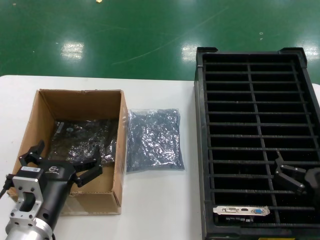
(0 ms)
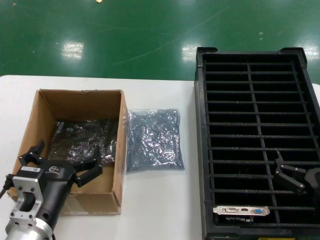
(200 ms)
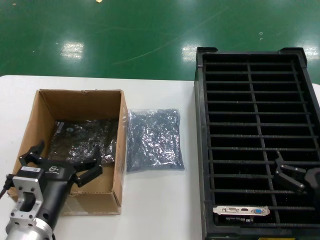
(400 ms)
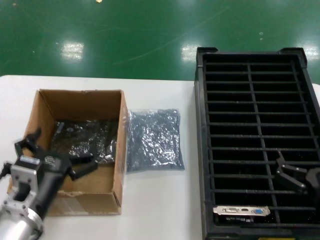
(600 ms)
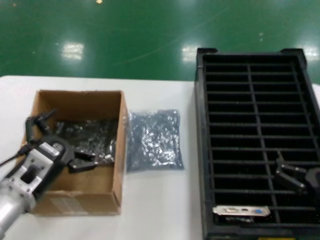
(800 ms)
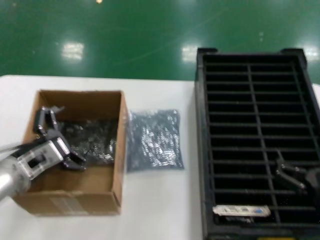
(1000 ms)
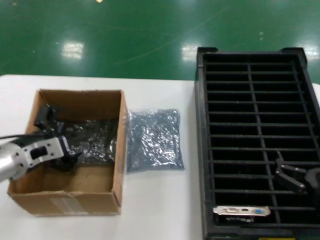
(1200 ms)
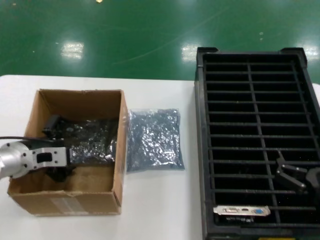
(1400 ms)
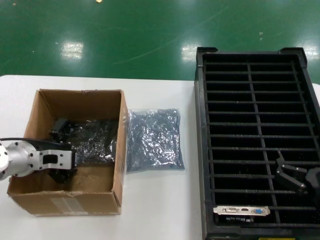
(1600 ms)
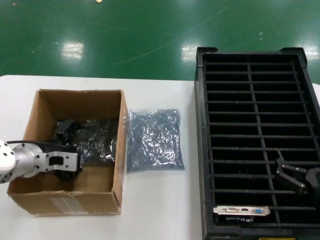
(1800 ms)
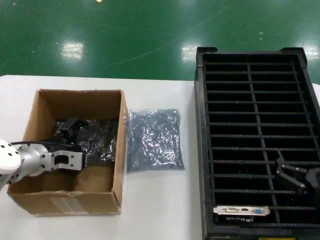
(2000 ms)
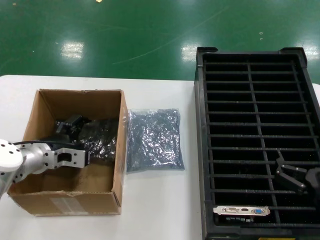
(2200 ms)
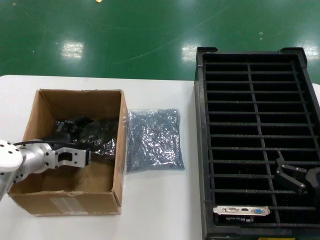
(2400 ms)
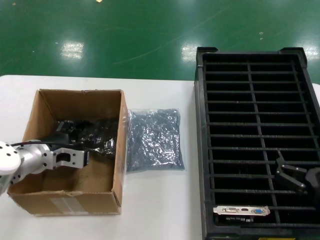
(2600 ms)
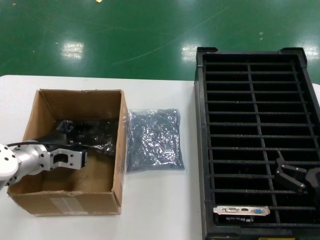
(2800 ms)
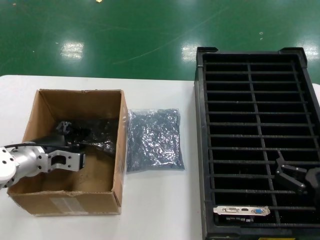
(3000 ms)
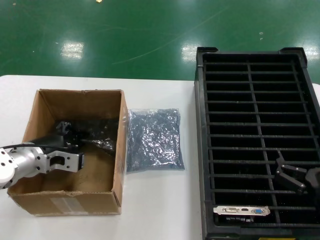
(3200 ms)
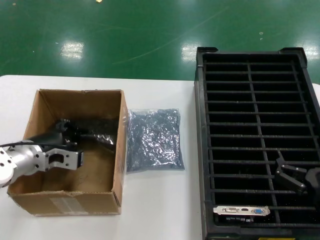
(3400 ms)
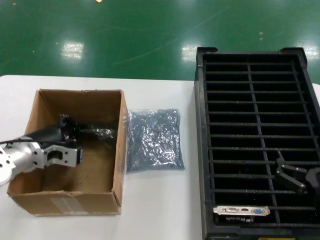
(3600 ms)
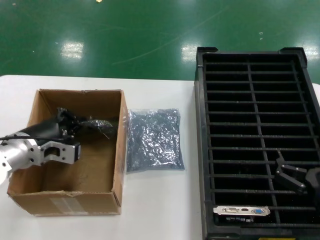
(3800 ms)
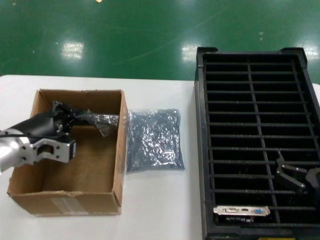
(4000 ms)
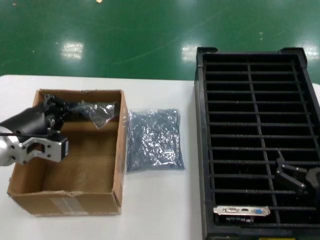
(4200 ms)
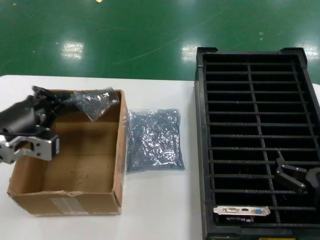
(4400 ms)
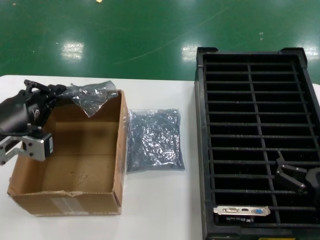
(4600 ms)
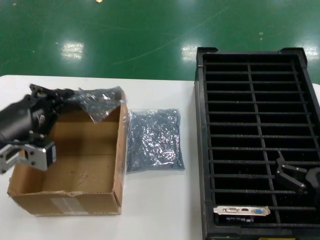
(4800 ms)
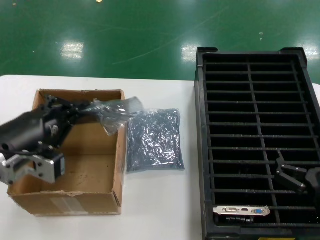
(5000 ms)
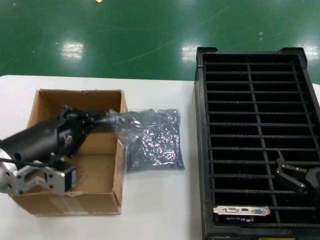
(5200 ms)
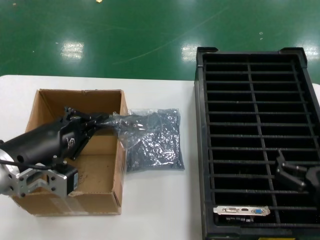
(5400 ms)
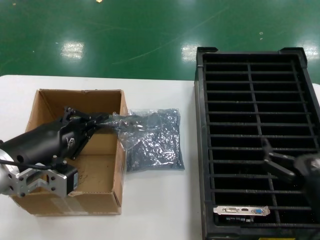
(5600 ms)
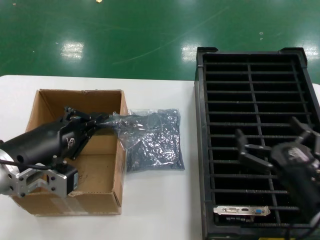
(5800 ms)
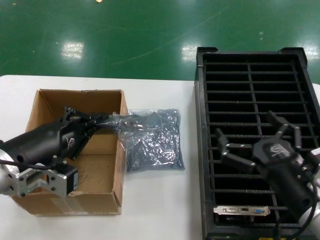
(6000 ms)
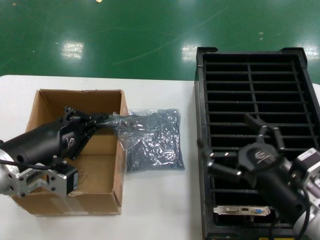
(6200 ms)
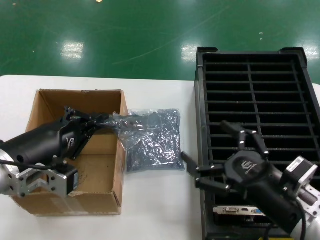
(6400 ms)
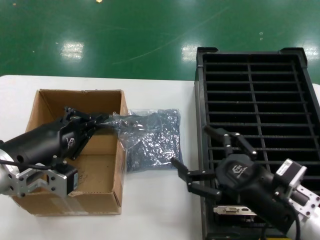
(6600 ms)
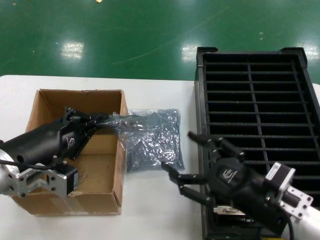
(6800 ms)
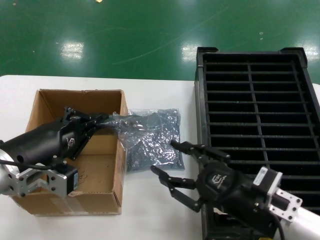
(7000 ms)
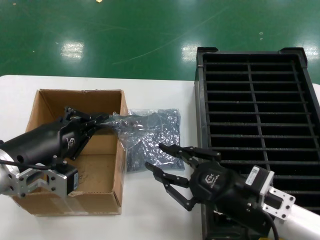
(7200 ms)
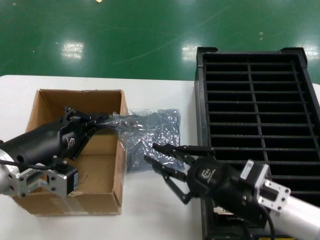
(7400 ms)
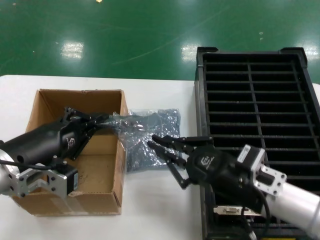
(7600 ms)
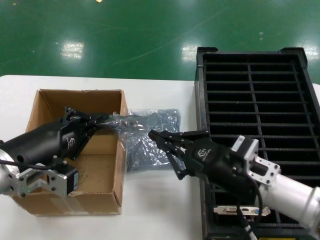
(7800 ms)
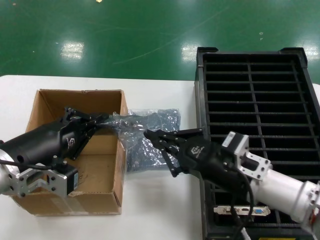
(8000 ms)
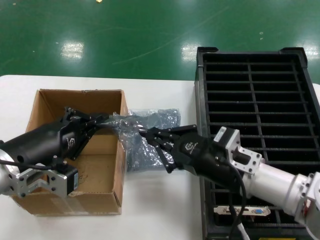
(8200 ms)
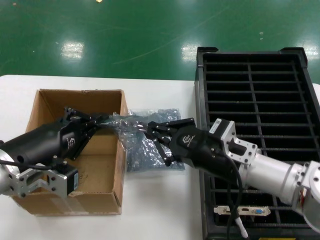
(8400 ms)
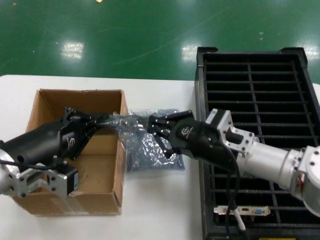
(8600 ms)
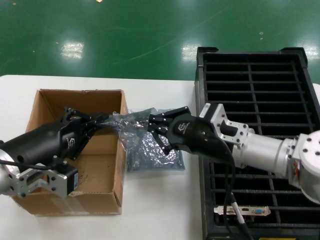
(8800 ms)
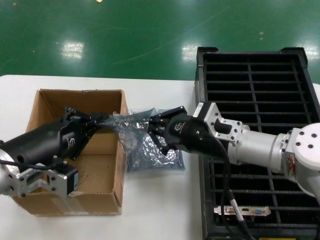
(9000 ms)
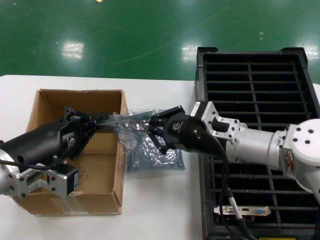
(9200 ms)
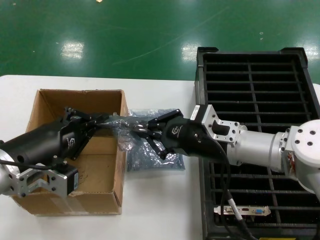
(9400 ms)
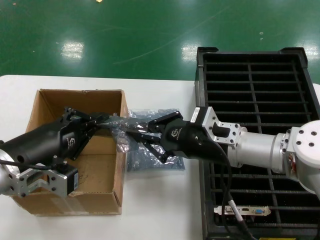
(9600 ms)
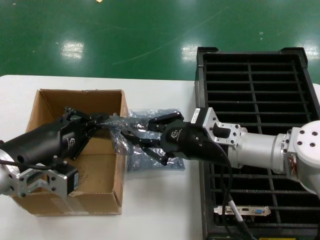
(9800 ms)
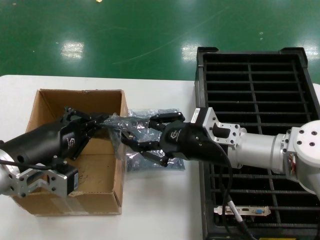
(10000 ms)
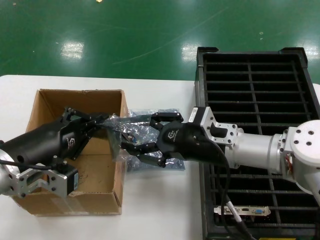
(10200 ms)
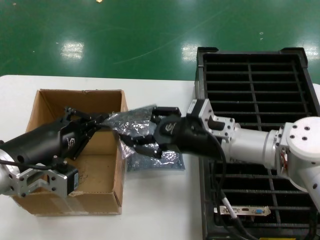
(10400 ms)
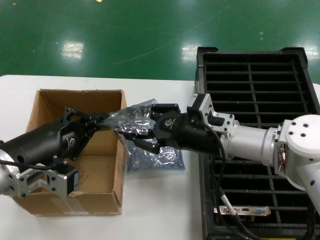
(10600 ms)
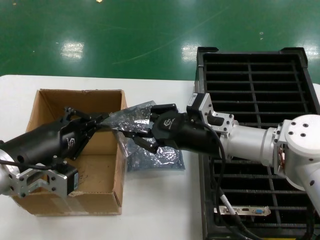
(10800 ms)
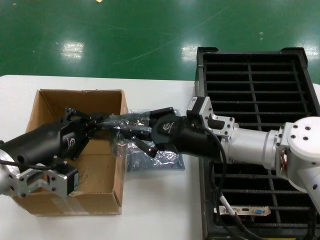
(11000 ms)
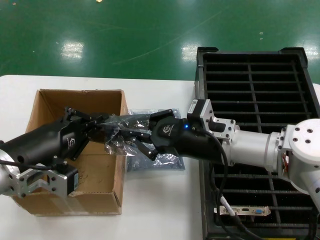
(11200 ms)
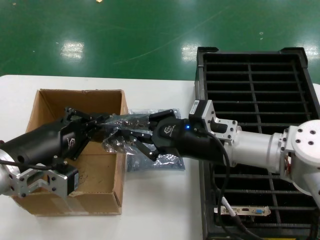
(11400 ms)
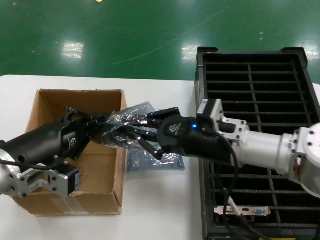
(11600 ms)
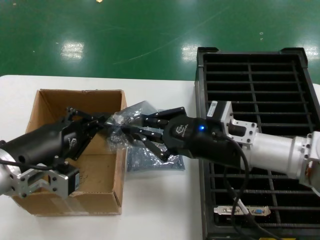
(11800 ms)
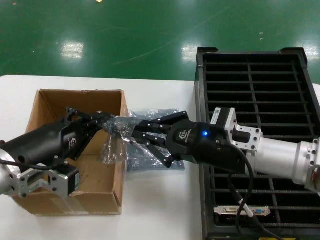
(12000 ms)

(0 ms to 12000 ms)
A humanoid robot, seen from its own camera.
Task of the whole recording: take out graphics card from box remove packaging put into black container.
Step, 0 ms - 3000 ms: Grasp the bag.
Step, 3200 ms - 5400 ms: Lift the bag.
0 ms - 1600 ms: The left hand travels forward and to the left by approximately 20 cm.
1600 ms - 3000 ms: The hands stay close to where they were, moving slightly.
3000 ms - 4400 ms: The left hand heads backward and upward, covering approximately 15 cm.
4400 ms - 6000 ms: The right hand moves some 5 cm. The left hand is displaced backward by roughly 5 cm.
6000 ms - 7600 ms: The right hand ends up about 5 cm from where it was.
7600 ms - 9000 ms: The right hand heads forward, covering about 10 cm.
9000 ms - 10400 ms: The hands make only small movements.
10400 ms - 12000 ms: The right hand shifts by roughly 5 cm.

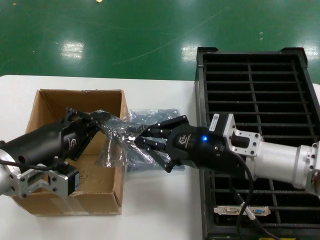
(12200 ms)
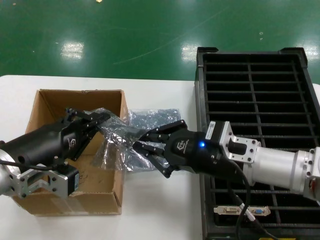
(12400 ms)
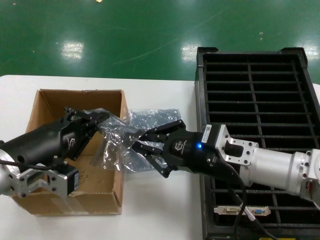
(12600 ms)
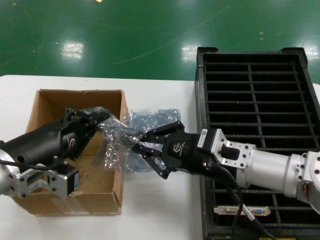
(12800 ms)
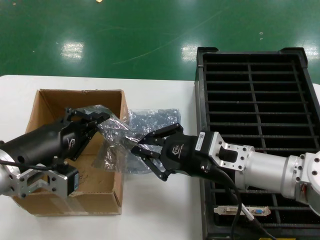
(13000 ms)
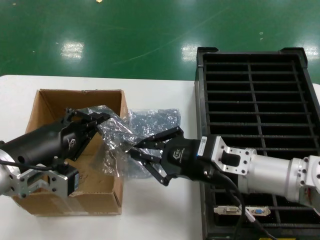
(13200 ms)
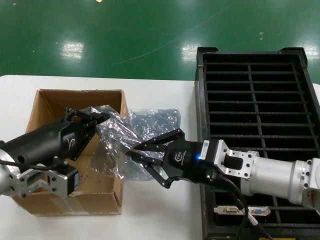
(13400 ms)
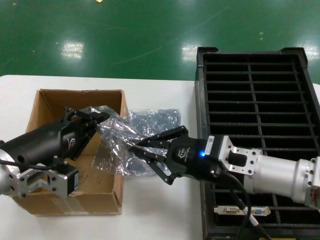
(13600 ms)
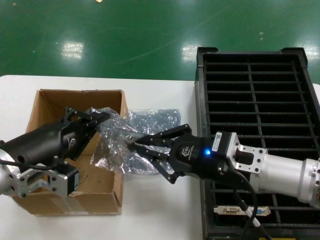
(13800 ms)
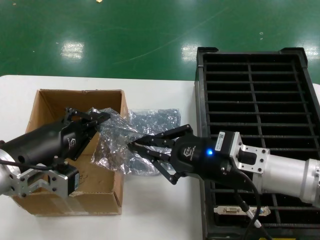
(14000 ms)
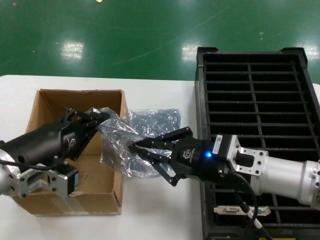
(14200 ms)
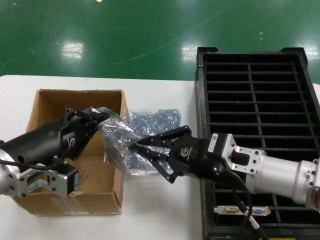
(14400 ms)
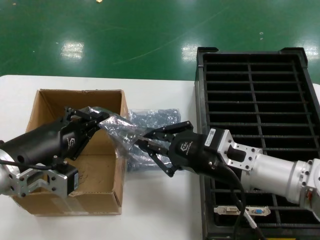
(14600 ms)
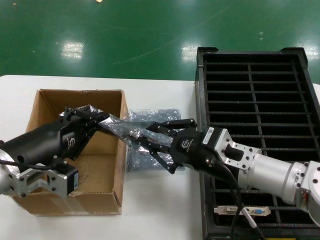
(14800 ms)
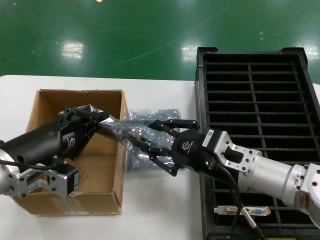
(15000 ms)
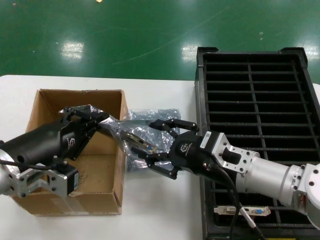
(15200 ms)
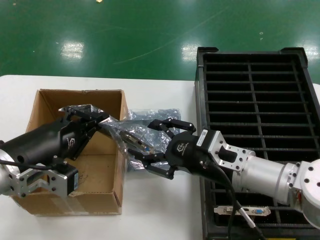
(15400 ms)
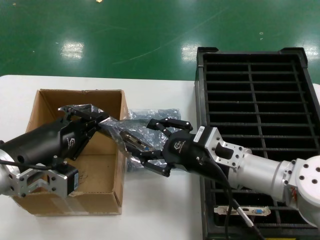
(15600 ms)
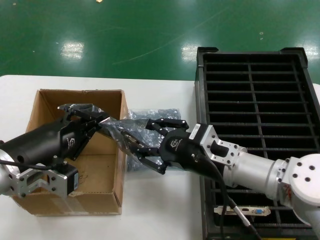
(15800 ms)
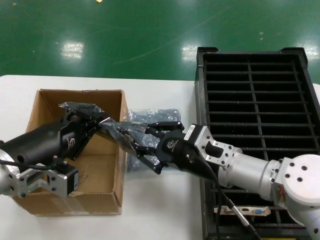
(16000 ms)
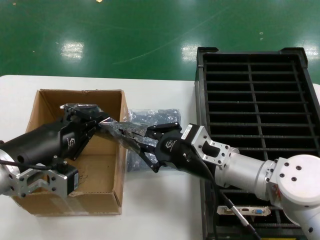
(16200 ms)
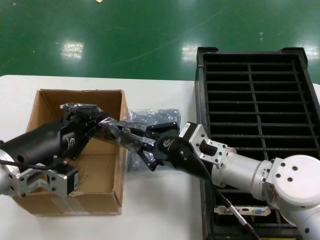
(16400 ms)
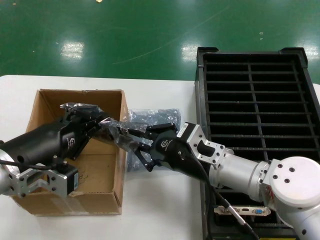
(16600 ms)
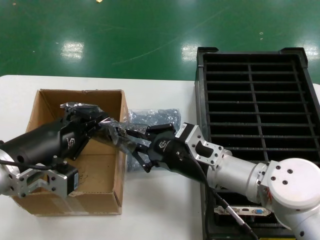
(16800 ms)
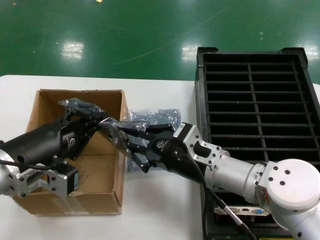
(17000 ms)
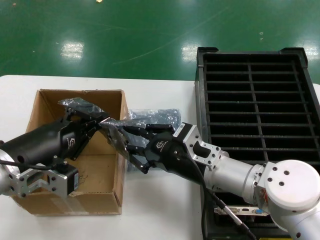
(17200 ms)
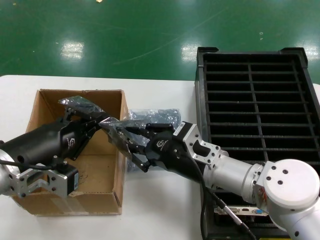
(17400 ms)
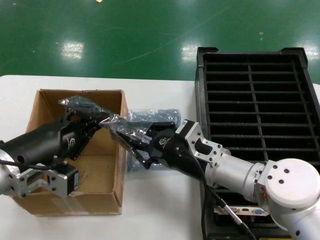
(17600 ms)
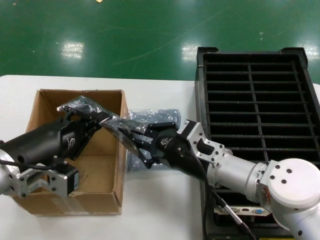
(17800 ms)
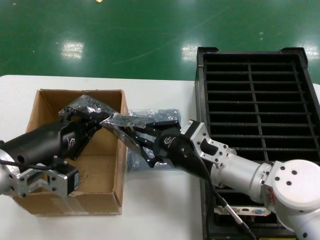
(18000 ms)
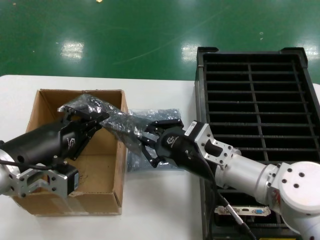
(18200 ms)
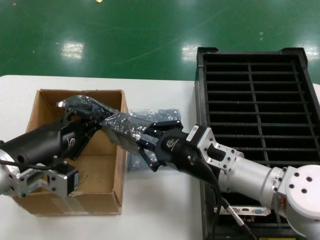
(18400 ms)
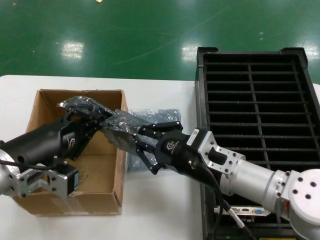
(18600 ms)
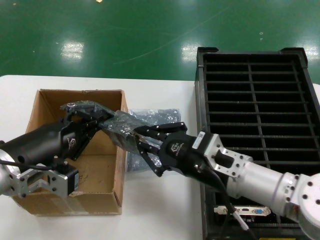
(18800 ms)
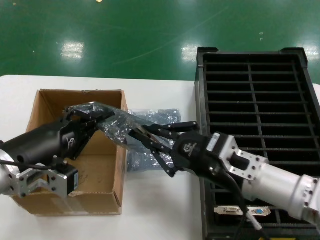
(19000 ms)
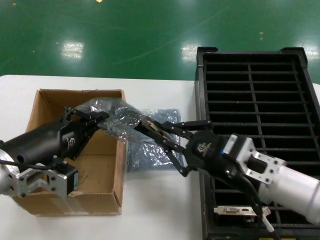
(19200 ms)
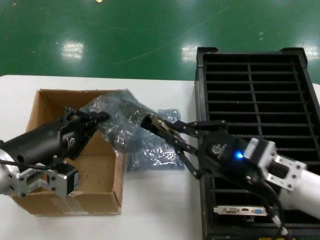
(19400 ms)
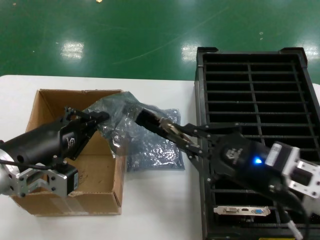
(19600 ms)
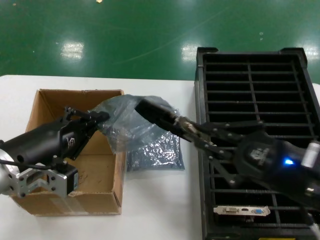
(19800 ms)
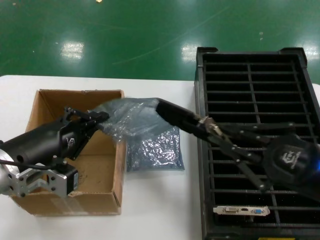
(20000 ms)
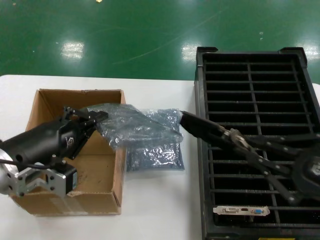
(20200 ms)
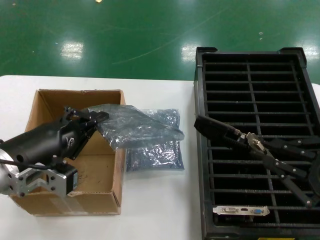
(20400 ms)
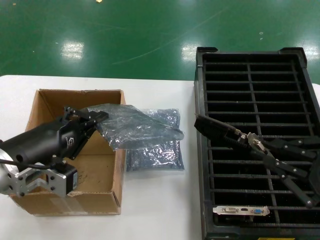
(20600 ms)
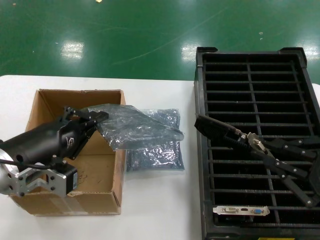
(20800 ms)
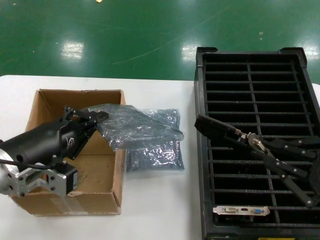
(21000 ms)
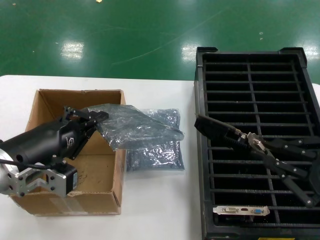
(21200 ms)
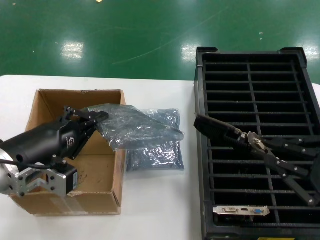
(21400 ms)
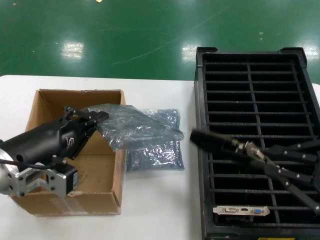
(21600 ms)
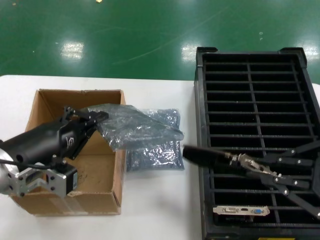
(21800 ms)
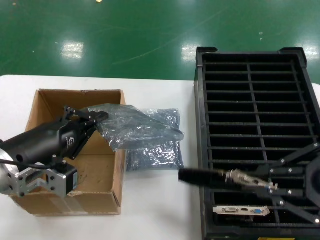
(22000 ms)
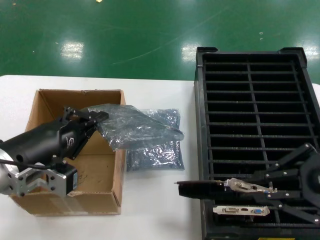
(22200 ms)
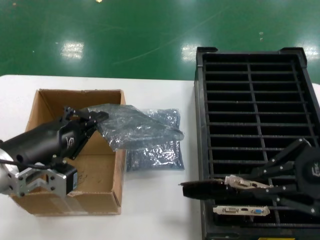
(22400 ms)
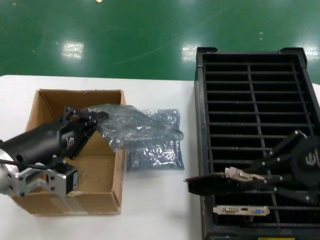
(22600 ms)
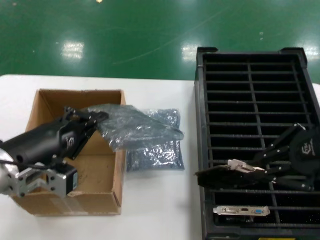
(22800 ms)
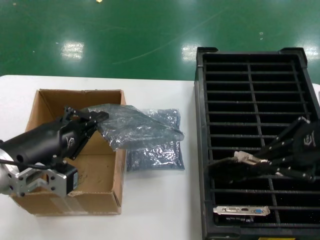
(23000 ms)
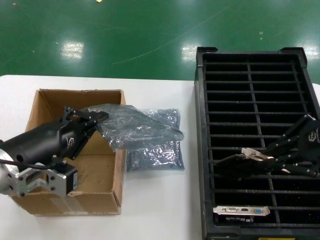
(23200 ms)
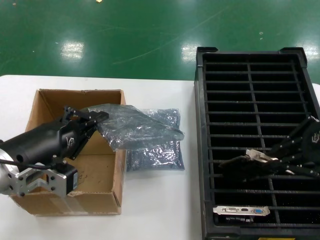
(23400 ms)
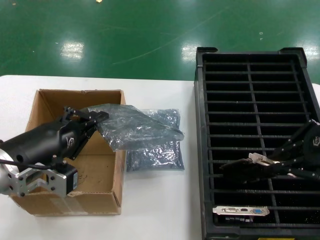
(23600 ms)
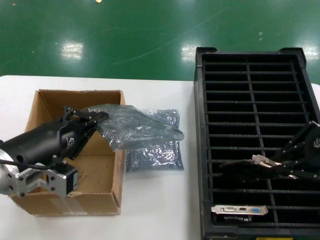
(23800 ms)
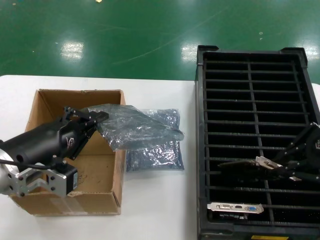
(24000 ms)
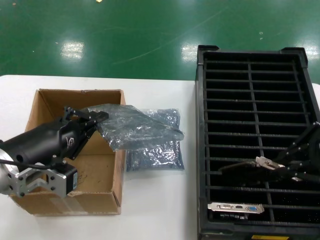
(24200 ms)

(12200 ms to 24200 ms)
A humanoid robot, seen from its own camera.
Task of the whole recording: take out graphics card from box remove packaging put into black container.
Step, 12200 ms - 20400 ms: Take out the hard disk of the bag.
12200 ms - 15200 ms: The hands move only a little.
15200 ms - 16600 ms: The hands move only a little.
16600 ms - 18200 ms: The two hands keep their place.
18200 ms - 19800 ms: The right hand is displaced to the right, backward and upward by approximately 20 cm.
19800 ms - 21200 ms: The right hand moves to the right, approximately 10 cm.
21200 ms - 22600 ms: The right hand moves upward and forward, roughly 15 cm.
22600 ms - 24200 ms: The right hand shifts by about 5 cm.
